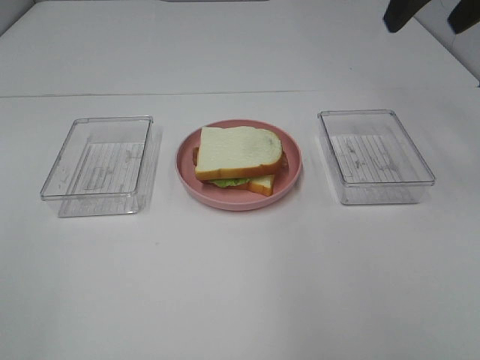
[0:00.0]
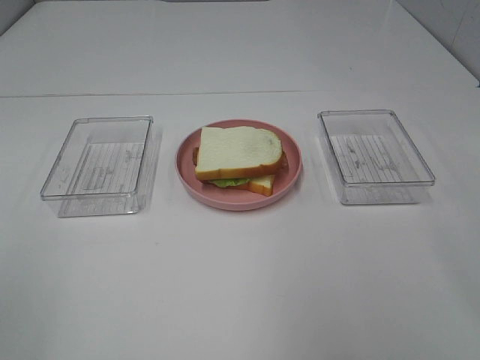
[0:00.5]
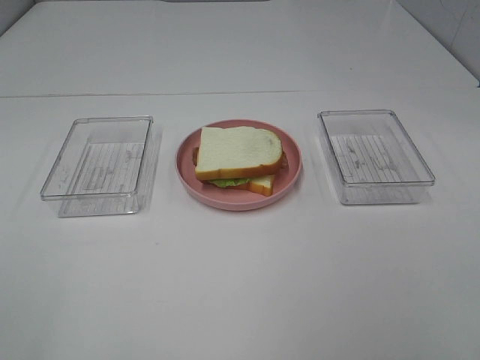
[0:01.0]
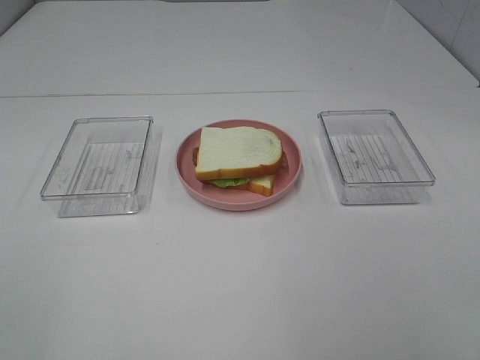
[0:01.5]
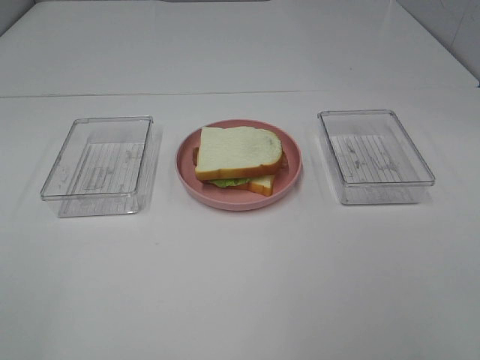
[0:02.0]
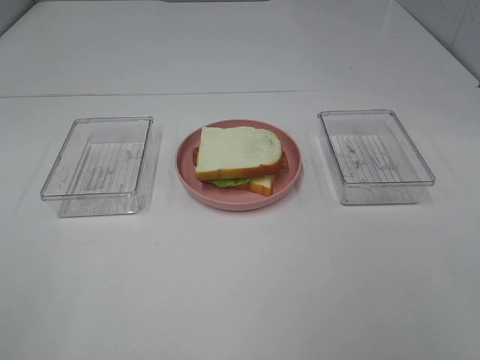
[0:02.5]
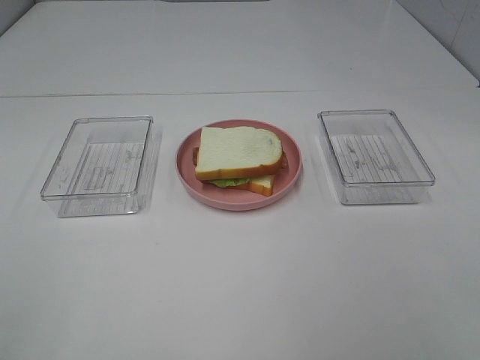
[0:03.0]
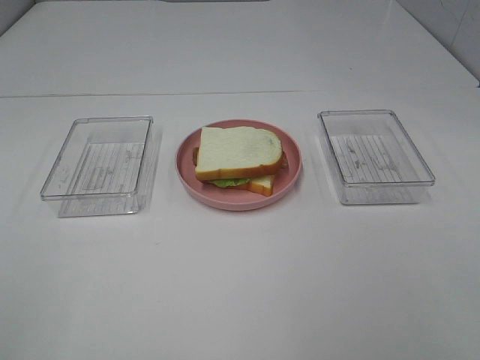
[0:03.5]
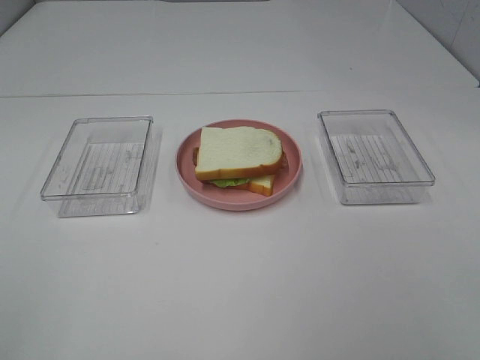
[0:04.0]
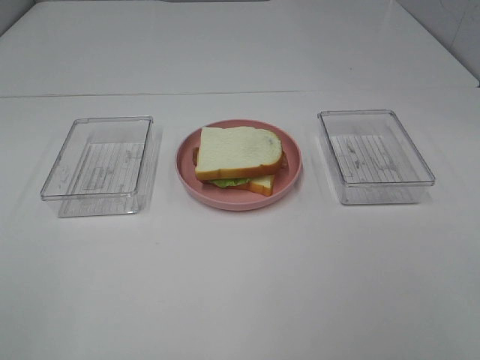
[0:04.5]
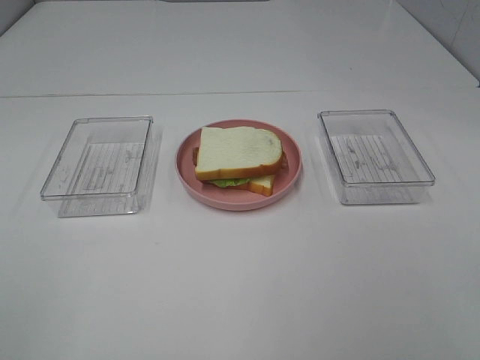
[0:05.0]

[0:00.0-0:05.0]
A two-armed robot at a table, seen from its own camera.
Task of the whole recording: Make sandwiches.
0:00.0 to 0:02.5: The right gripper travels backward by roughly 30 cm.

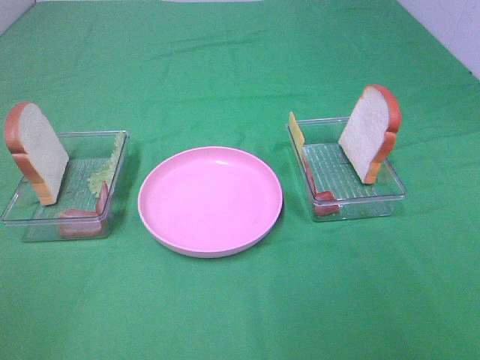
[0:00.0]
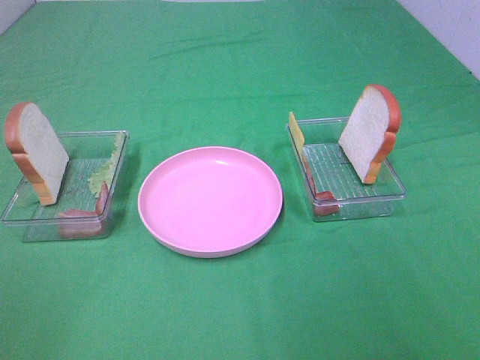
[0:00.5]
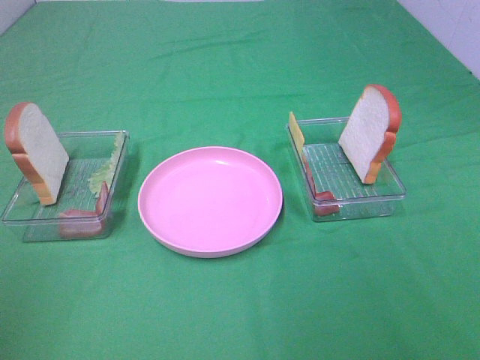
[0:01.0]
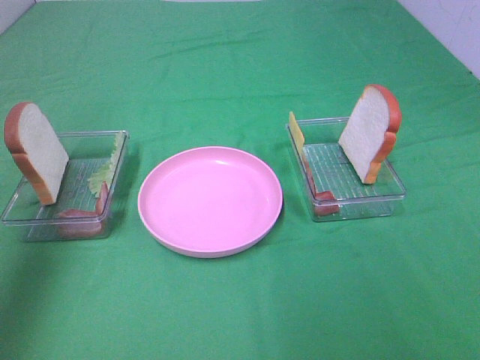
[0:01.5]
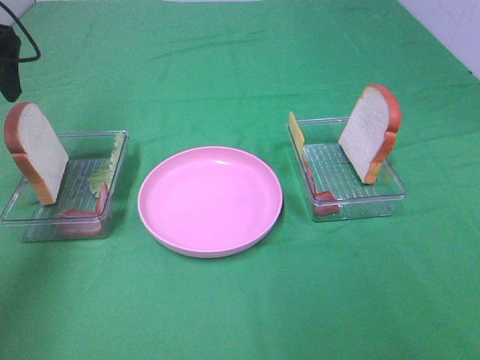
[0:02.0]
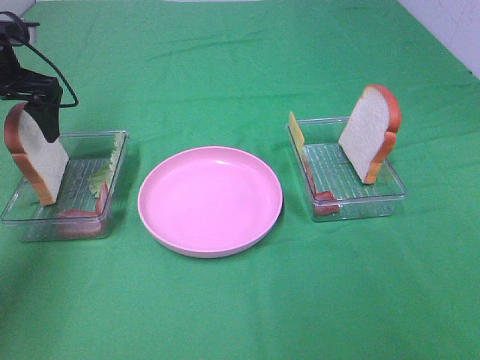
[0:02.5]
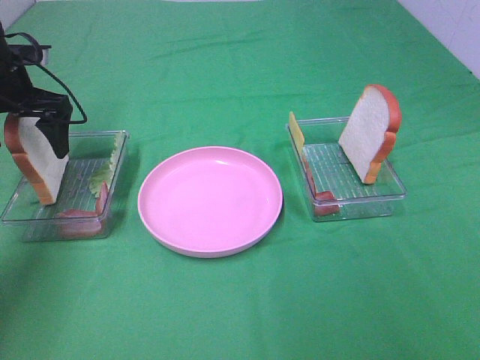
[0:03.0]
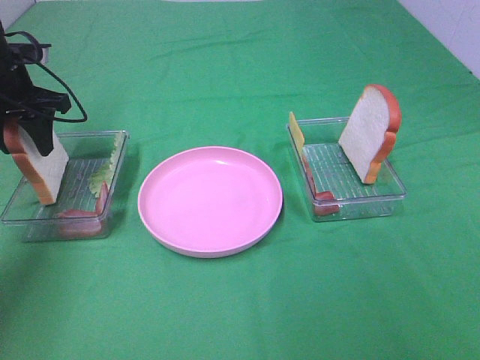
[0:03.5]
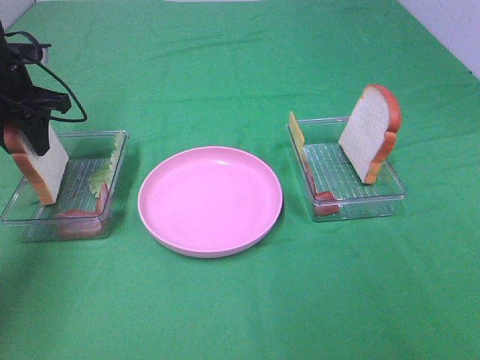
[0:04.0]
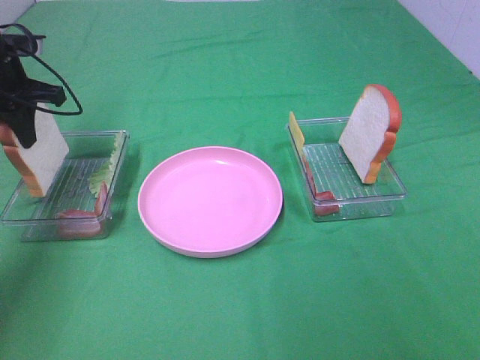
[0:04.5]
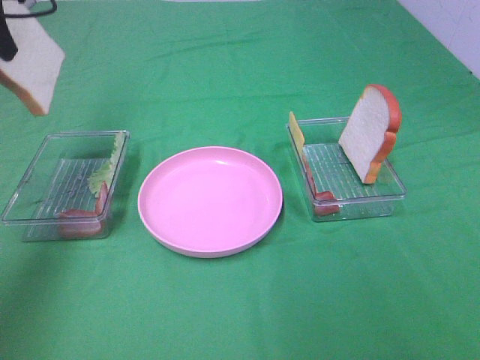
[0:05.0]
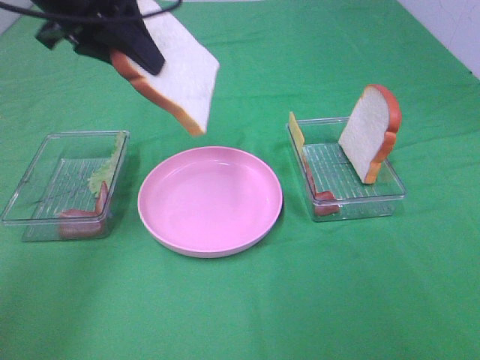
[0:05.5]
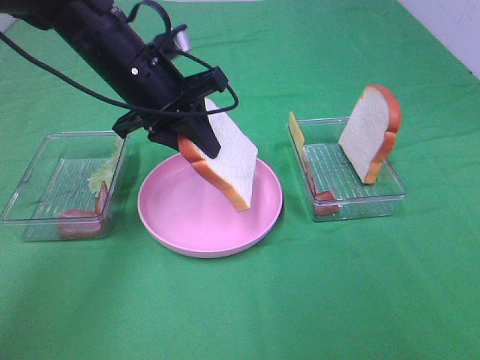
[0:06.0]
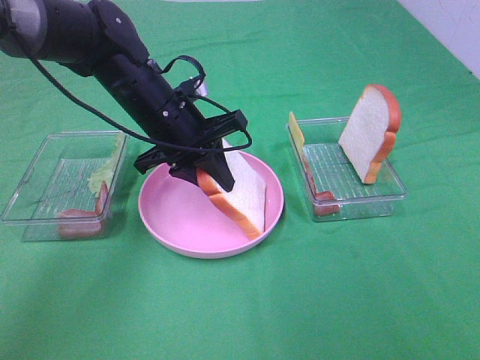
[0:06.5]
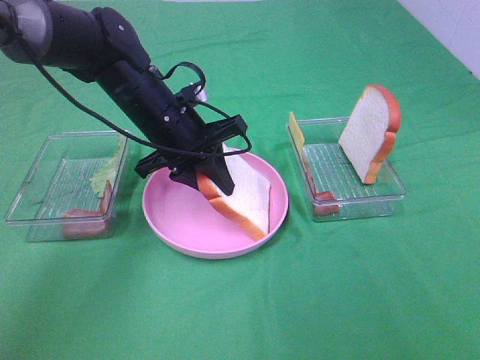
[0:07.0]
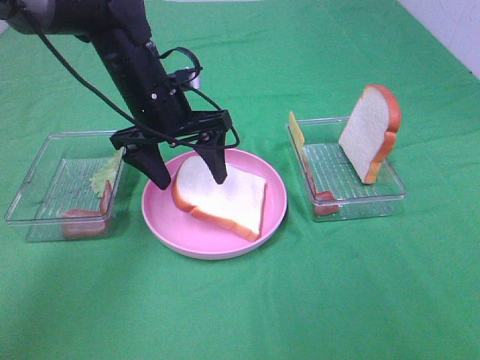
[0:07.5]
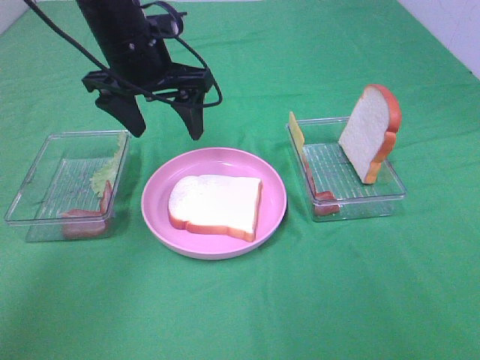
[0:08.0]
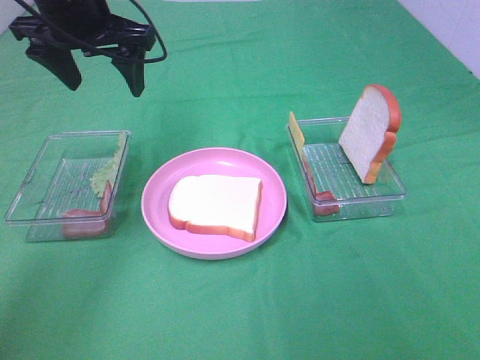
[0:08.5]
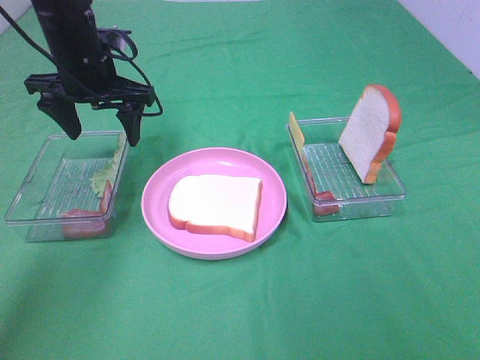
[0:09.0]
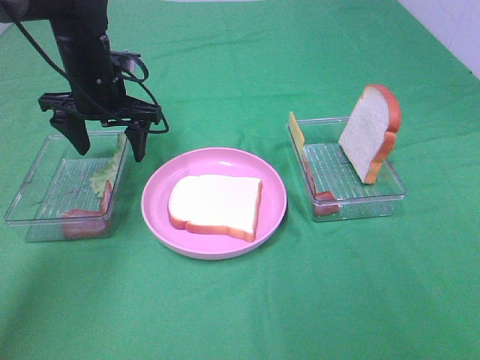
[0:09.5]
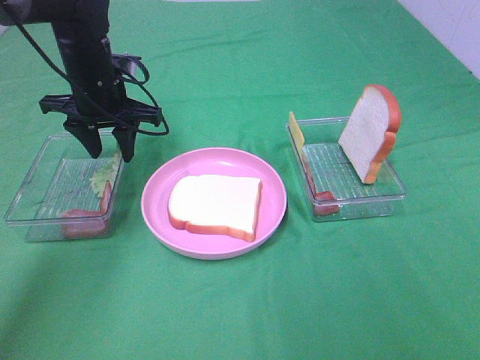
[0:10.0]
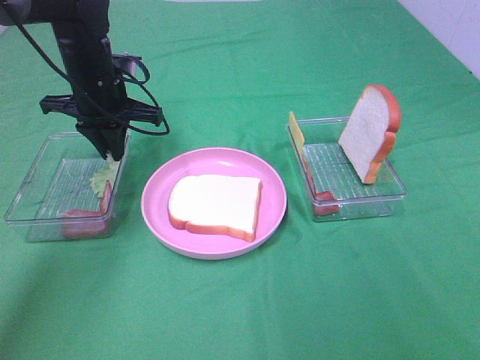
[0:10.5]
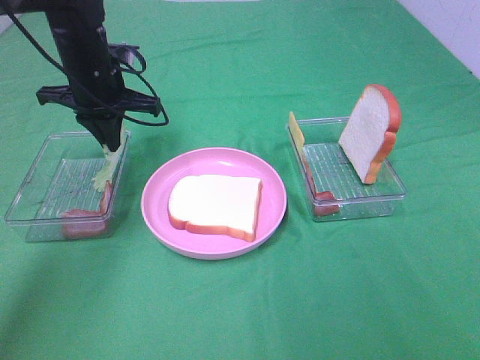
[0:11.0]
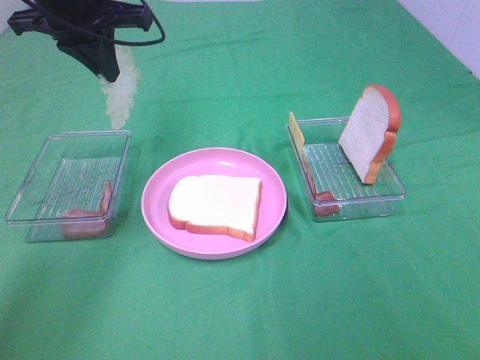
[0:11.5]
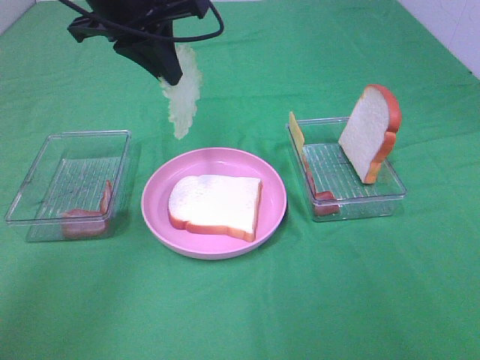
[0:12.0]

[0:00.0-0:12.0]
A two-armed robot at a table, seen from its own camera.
Task of the whole recording: Make sandwiches.
Step, 0:00.0 to 0:04.0: Left hand:grab the bread slice.
Step, 0:04.5 to 0:07.5: Left hand:place the bread slice on the plate.
Step, 0:08.0 to 0:11.0: Left hand:grab the lettuce slice.
0:00.0 to 0:02.0: The left gripper heads forward, covering roughly 40 cm.
0:02.0 to 0:04.0: The left gripper goes roughly 10 cm downward, and closes.
0:04.0 to 0:06.0: The left gripper shifts about 20 cm to the right.
0:06.0 to 0:08.0: The left gripper opens.
0:08.0 to 0:10.0: The left gripper heads downward and to the left, covering roughly 10 cm.
0:10.0 to 0:12.0: The left gripper moves upward, to the right and backward, roughly 15 cm, and closes its fingers.

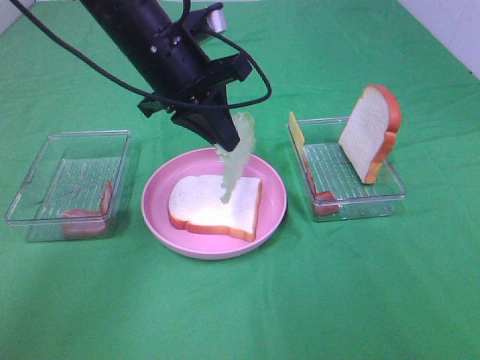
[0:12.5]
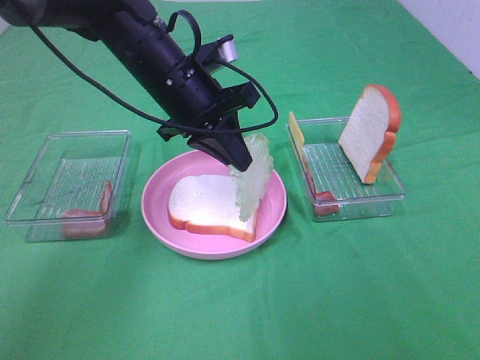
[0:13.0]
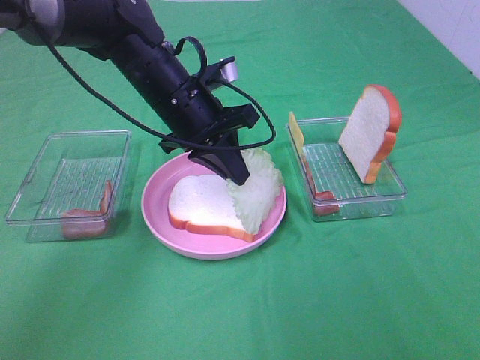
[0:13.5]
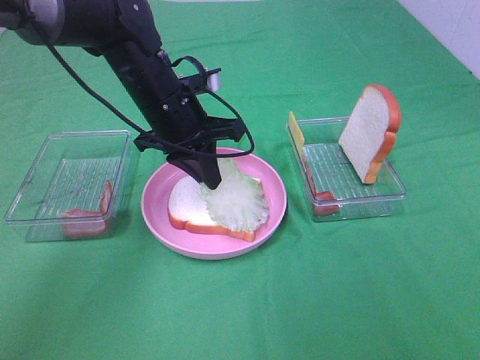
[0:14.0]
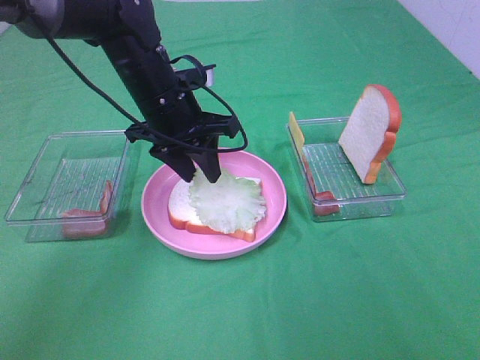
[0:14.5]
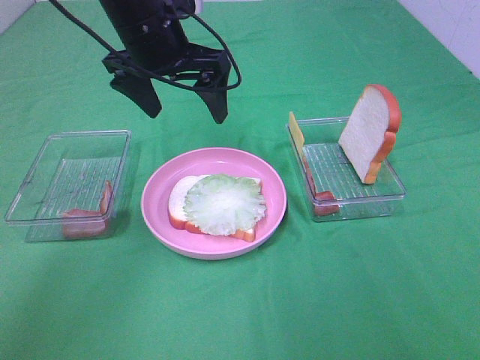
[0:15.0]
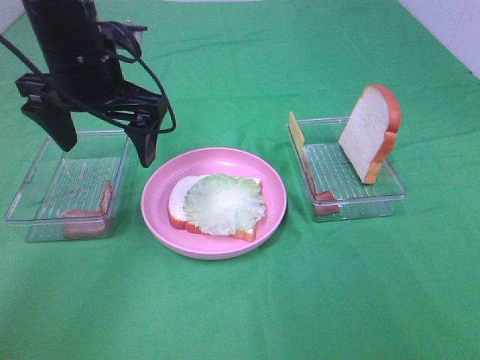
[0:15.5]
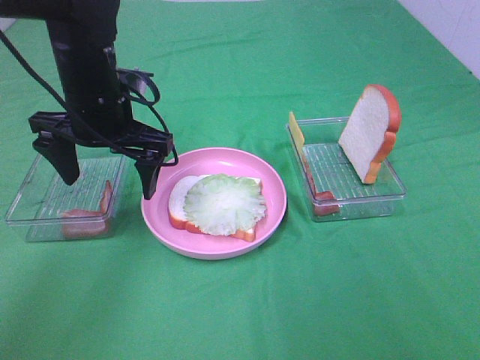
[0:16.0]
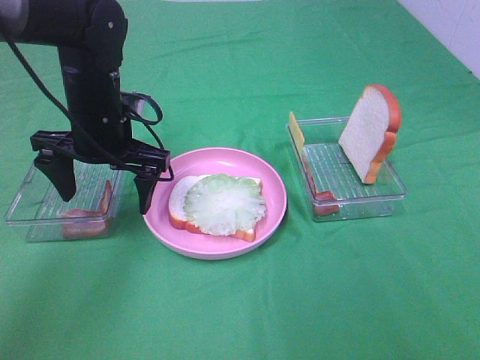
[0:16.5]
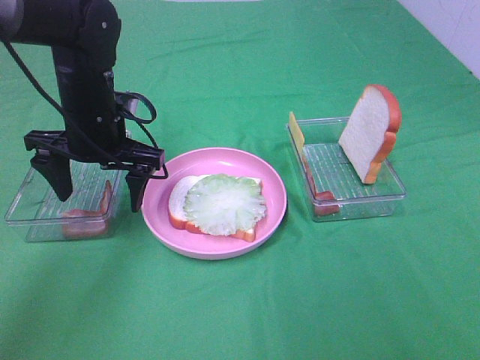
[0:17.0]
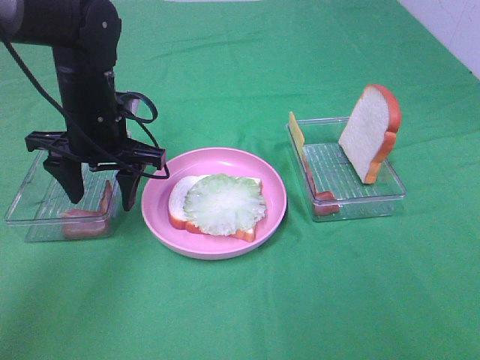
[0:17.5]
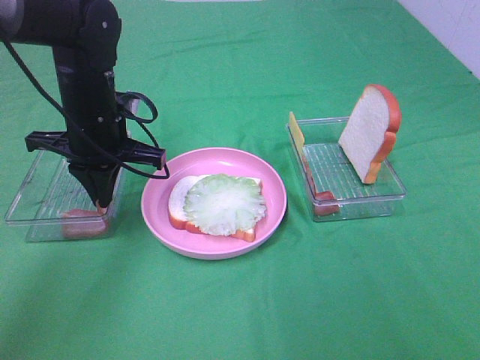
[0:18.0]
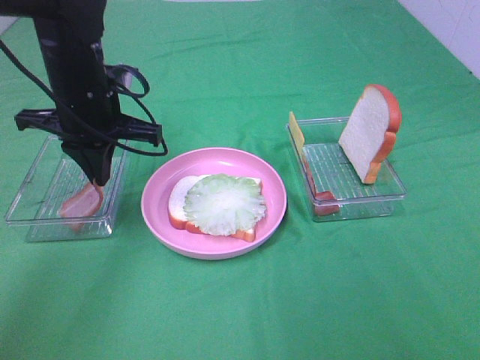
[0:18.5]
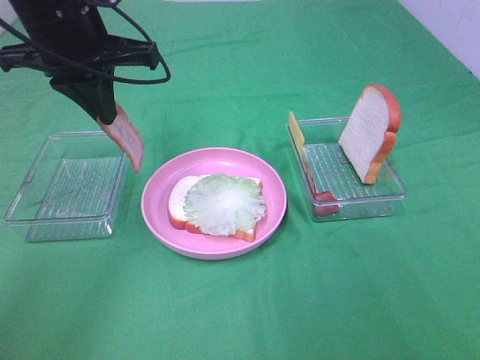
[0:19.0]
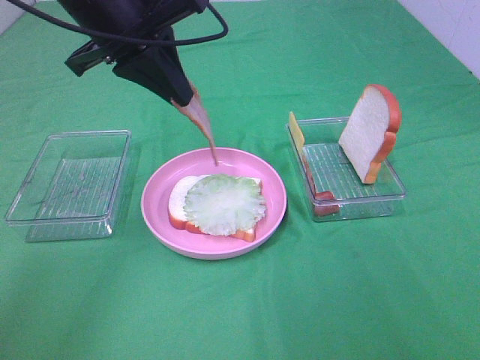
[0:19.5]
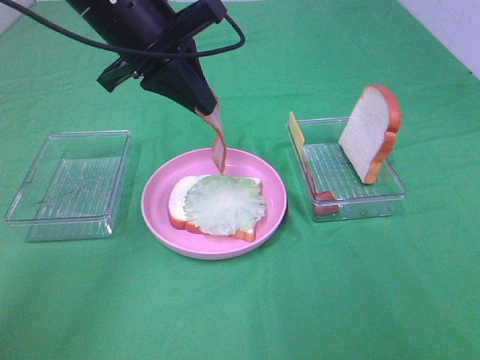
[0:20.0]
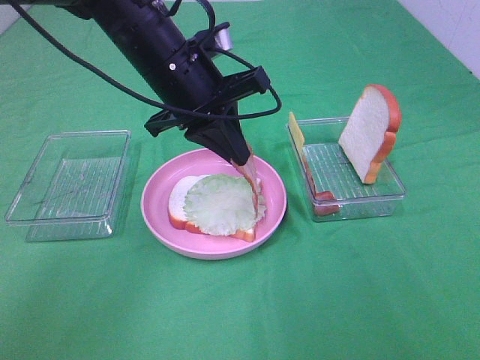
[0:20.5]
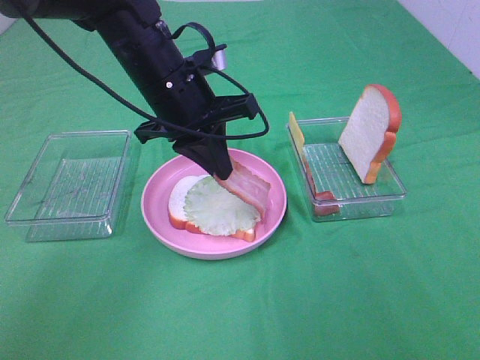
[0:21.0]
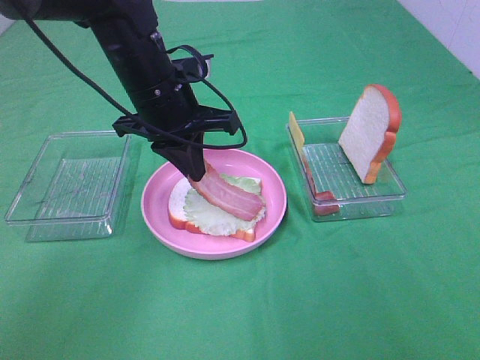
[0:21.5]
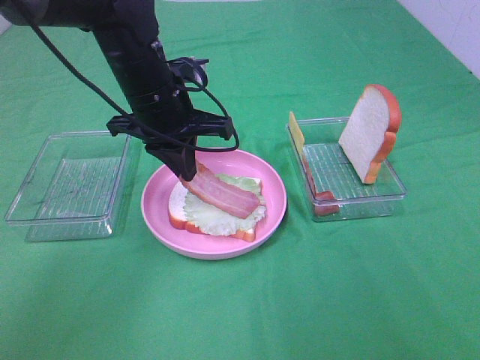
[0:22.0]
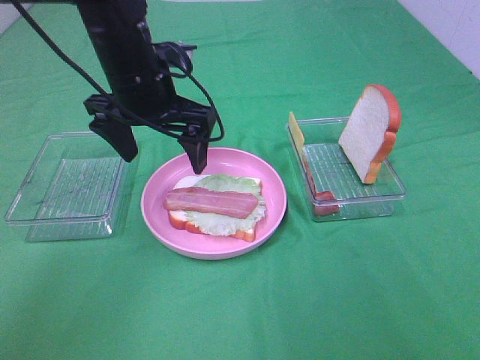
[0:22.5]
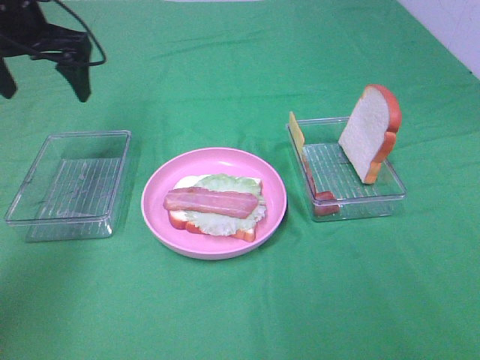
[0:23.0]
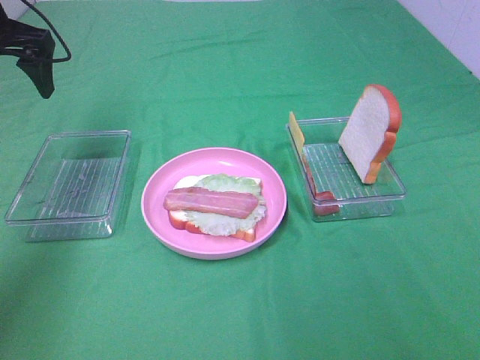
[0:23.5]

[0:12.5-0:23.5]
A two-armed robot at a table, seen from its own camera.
Task of the whole recording: Make sandwiches.
Step, 0:12.5 to 0:14.5: Left hand:place the lettuce slice on the bread slice.
Step, 0:15.0 to 0:18.5: Left hand:grab the bacon.
Step, 0:19.0 to 0:22.0: Left hand:place bacon on lettuce slice.
0:12.5 to 0:14.5: The left gripper travels downward by roughly 5 cm, and opens up.
0:14.5 to 0:16.0: The left gripper moves to the left, approximately 5 cm, moves approximately 10 cm upward and comes back, and opens.
0:16.0 to 0:18.0: The left gripper closes its fingers.
0:18.0 to 0:20.0: The left gripper travels upward and to the right by about 15 cm.
0:20.0 to 0:21.5: The left gripper shifts about 10 cm downward.
0:21.5 to 0:23.5: The left gripper heads to the left and upward, covering approximately 20 cm, and opens.
